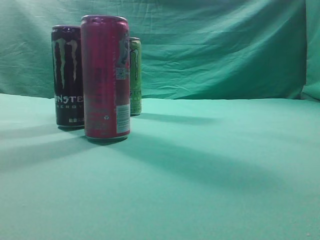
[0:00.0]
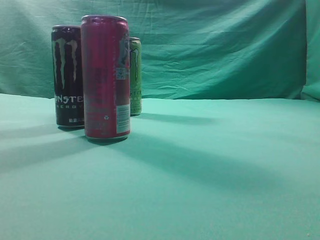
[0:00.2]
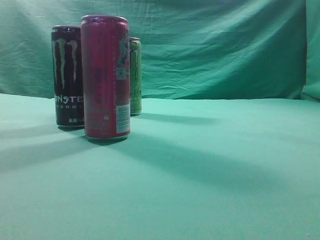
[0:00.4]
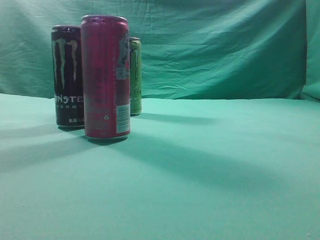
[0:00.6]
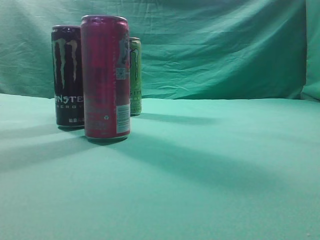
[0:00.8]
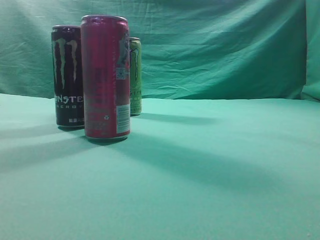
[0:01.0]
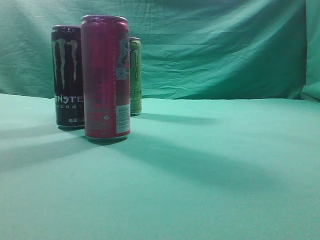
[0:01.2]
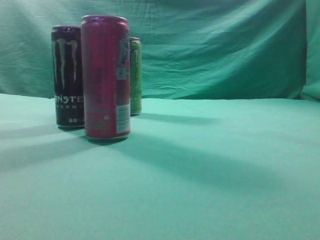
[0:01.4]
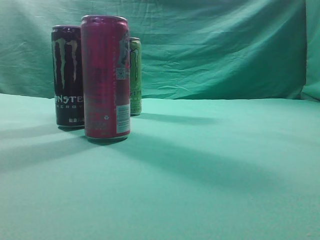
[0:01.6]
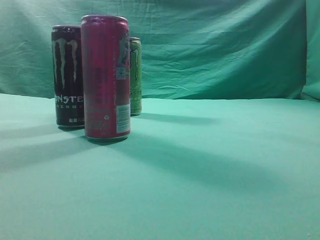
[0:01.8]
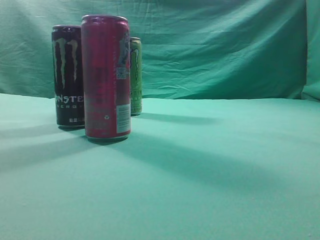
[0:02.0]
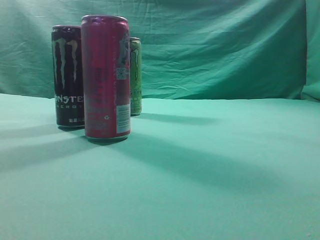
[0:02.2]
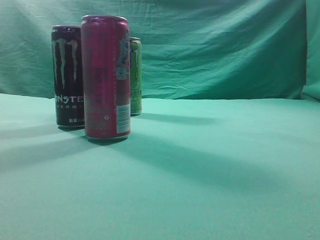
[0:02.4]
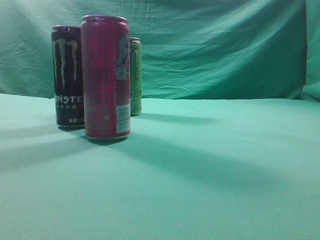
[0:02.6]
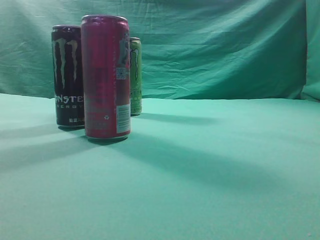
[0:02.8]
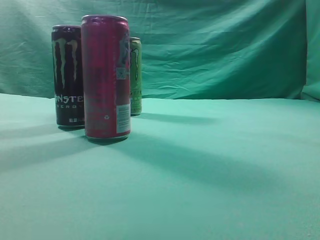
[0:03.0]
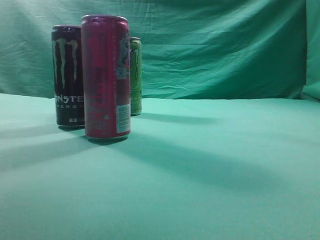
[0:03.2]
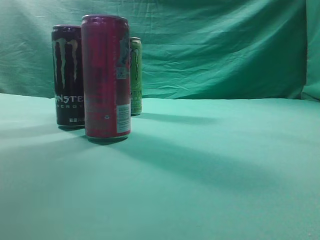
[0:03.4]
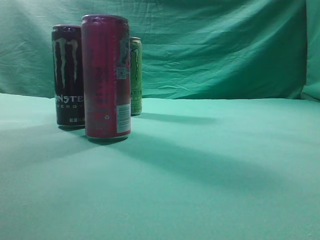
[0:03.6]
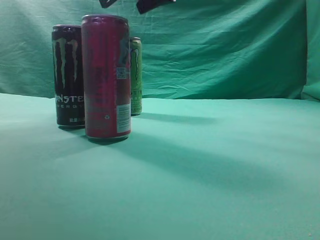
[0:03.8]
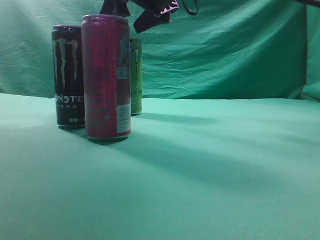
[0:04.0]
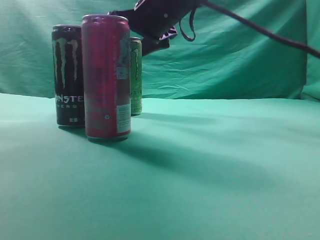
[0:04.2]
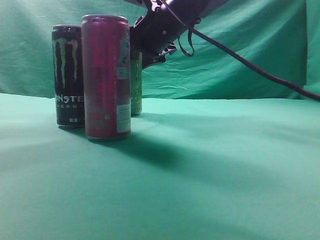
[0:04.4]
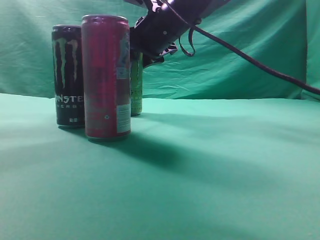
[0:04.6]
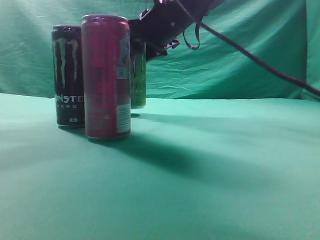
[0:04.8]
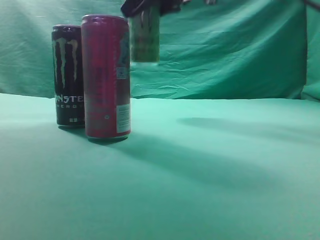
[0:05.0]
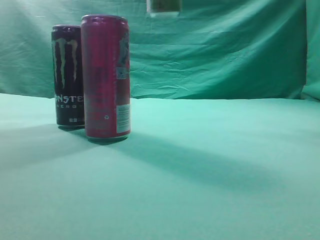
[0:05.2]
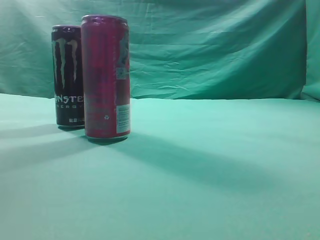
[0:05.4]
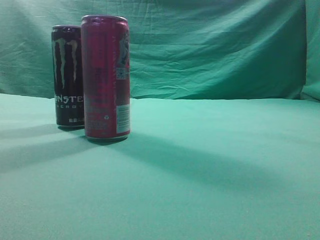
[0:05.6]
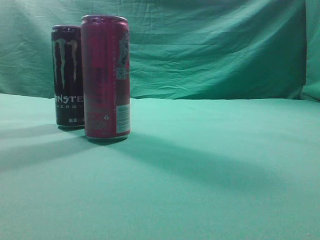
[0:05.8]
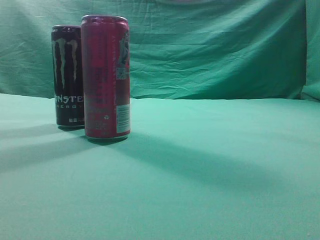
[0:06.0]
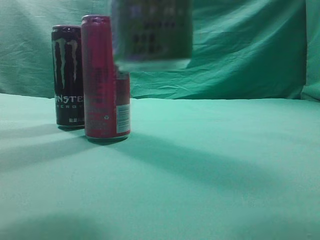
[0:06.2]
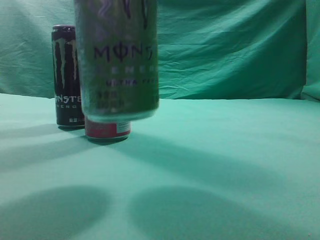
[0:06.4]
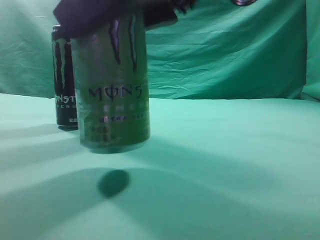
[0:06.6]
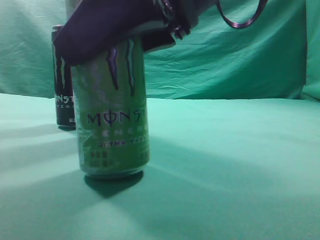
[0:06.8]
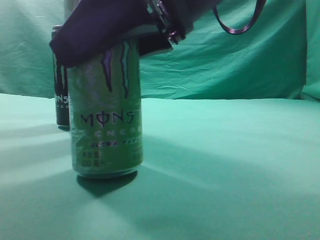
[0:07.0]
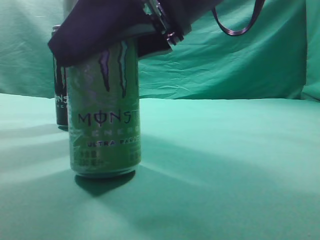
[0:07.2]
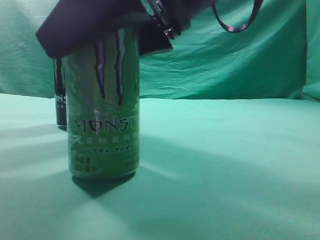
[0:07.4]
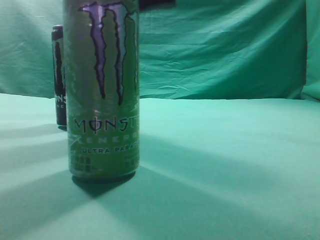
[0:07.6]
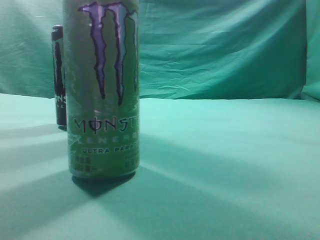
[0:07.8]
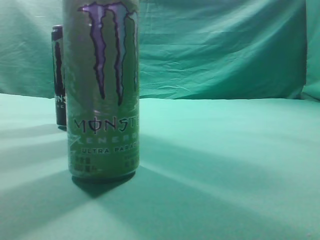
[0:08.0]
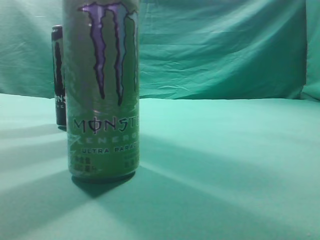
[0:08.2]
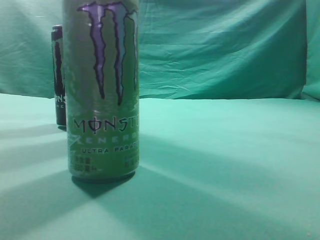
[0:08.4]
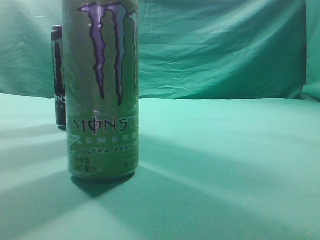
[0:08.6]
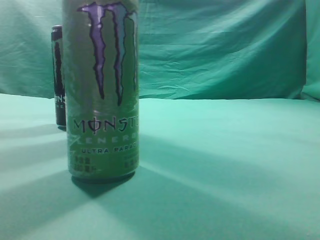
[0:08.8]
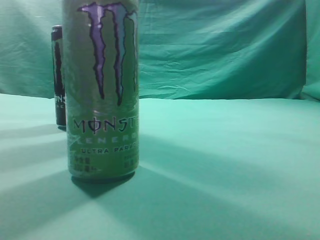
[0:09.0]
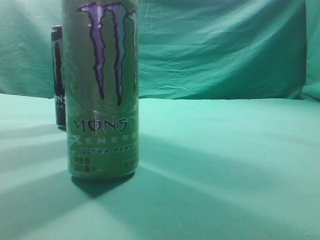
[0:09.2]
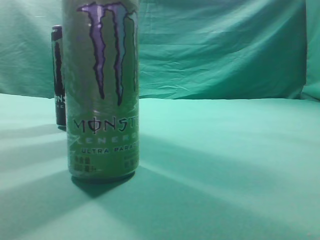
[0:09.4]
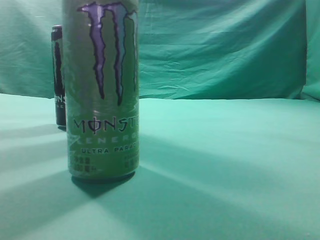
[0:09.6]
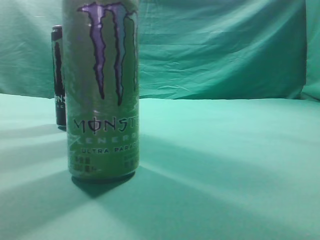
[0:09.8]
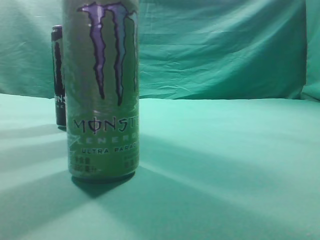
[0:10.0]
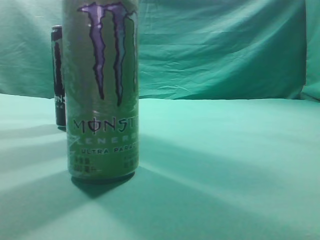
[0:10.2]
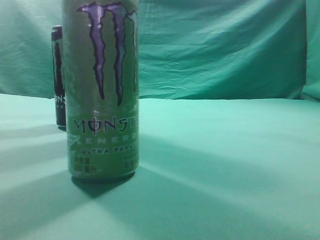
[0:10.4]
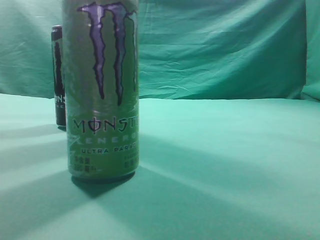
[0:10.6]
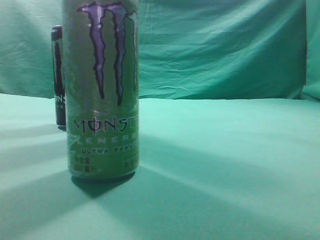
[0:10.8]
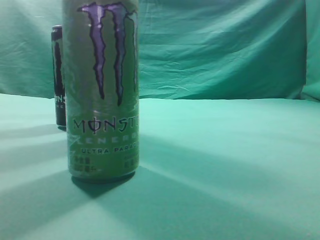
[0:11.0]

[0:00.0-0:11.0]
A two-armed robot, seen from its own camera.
Task of the whole recording: move one drink among three beverages.
Step, 0:00.0 to 0:04.8: Grasp the beverage bottle placed at the back of the desk.
Step, 0:05.0 to 0:07.4: Place the beverage bottle to the front of the table.
0:01.6 to 0:03.2: The right gripper is displaced forward, to the left and upward by approximately 30 cm.
0:03.2 to 0:04.8: The right gripper goes about 20 cm forward, downward and to the left, and opens up.
0:04.8 to 0:06.2: The right gripper goes approximately 25 cm backward.
0:06.2 to 0:07.8: The right gripper moves roughly 5 cm downward and comes back.

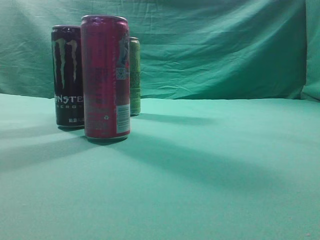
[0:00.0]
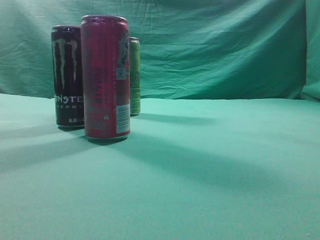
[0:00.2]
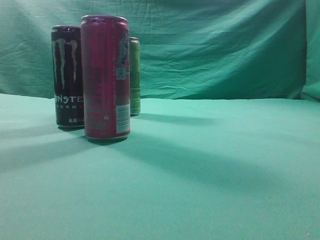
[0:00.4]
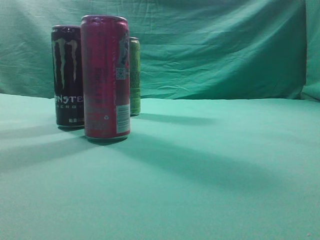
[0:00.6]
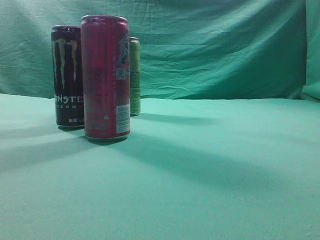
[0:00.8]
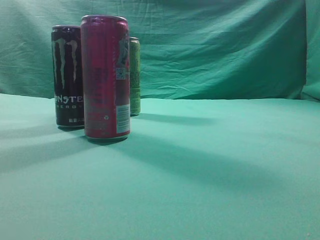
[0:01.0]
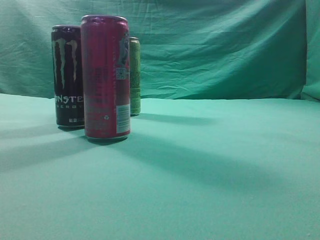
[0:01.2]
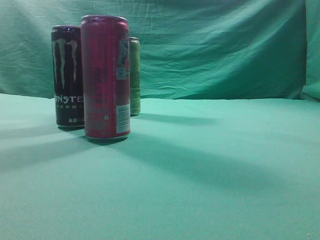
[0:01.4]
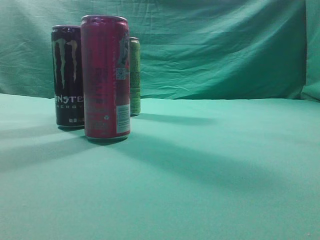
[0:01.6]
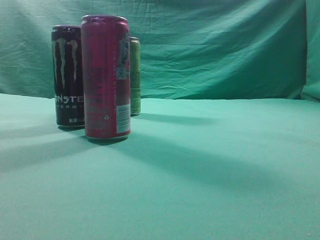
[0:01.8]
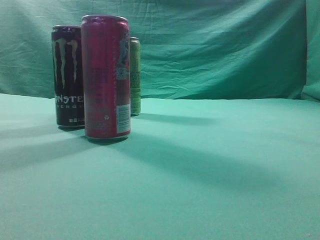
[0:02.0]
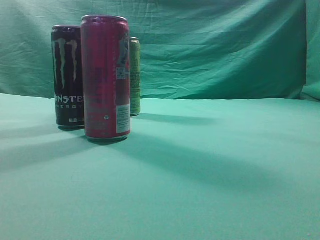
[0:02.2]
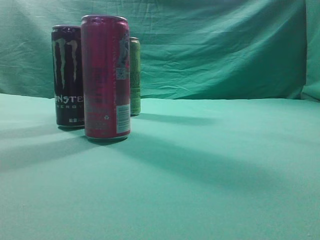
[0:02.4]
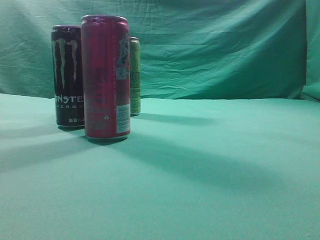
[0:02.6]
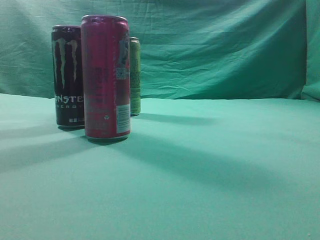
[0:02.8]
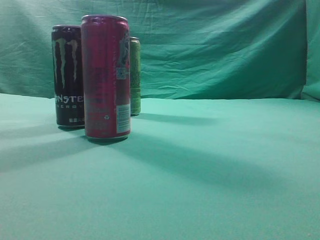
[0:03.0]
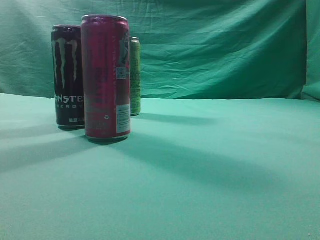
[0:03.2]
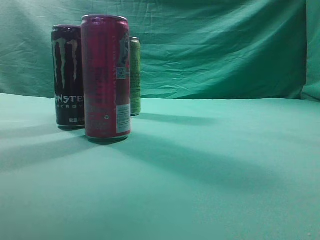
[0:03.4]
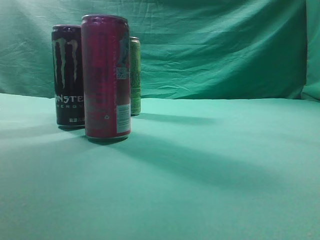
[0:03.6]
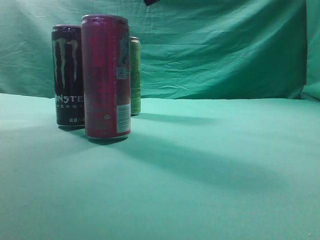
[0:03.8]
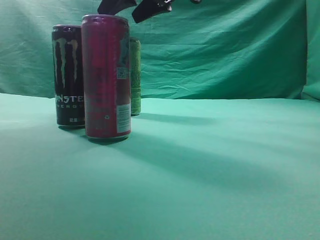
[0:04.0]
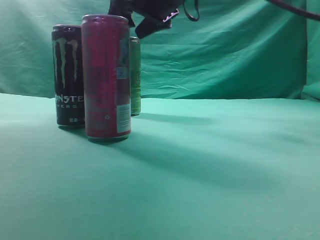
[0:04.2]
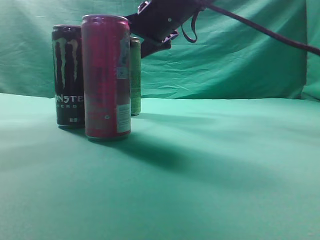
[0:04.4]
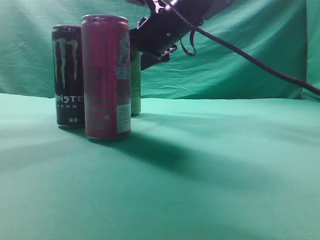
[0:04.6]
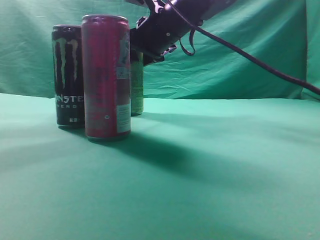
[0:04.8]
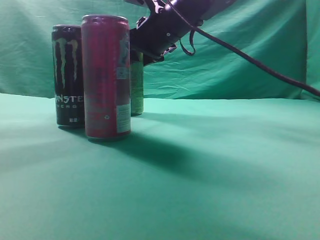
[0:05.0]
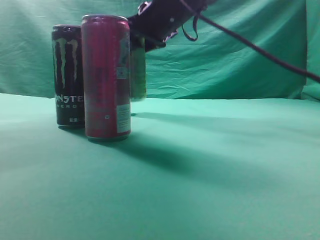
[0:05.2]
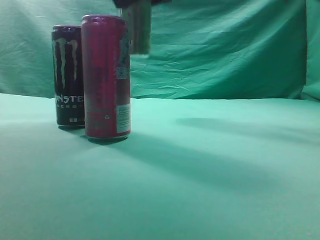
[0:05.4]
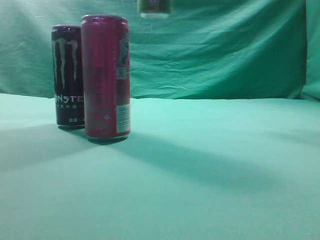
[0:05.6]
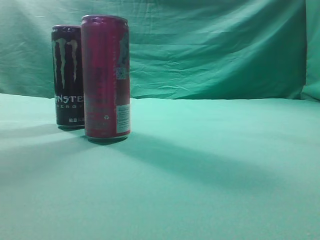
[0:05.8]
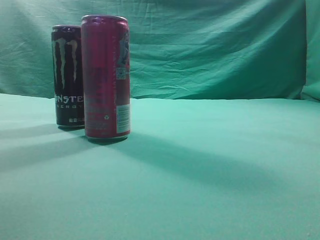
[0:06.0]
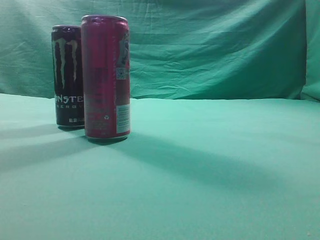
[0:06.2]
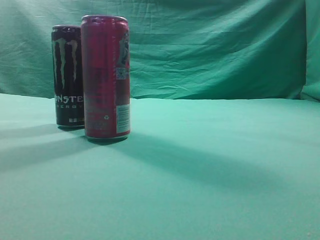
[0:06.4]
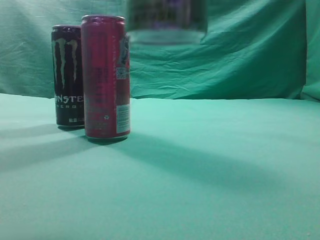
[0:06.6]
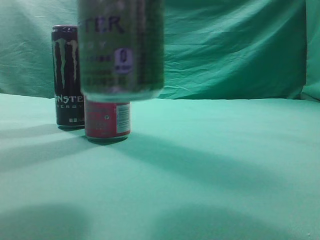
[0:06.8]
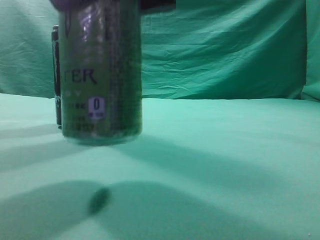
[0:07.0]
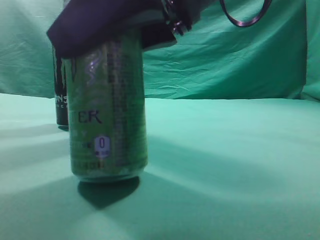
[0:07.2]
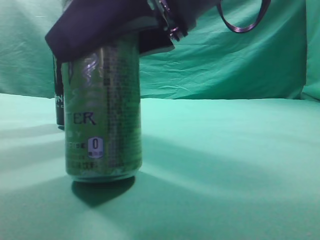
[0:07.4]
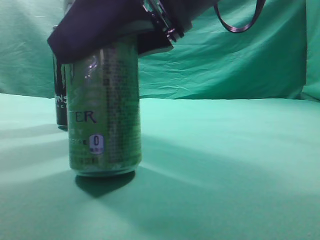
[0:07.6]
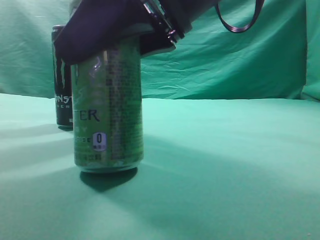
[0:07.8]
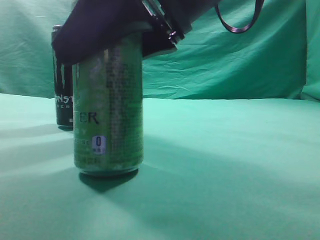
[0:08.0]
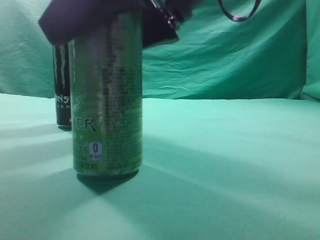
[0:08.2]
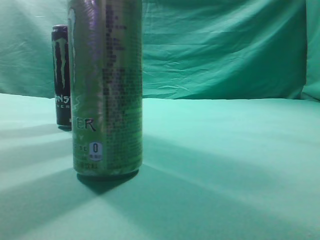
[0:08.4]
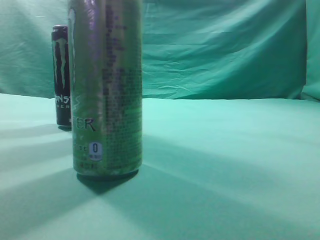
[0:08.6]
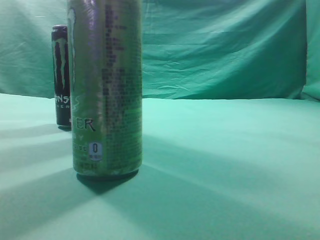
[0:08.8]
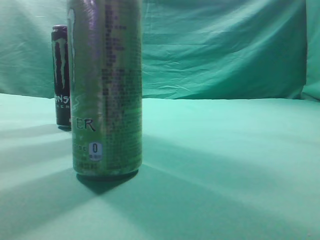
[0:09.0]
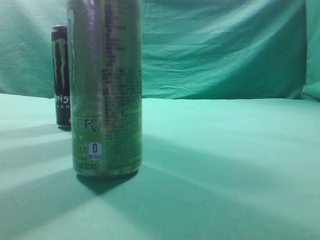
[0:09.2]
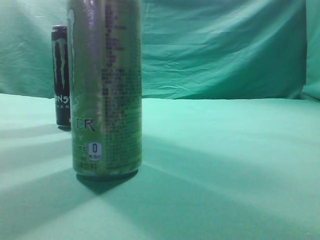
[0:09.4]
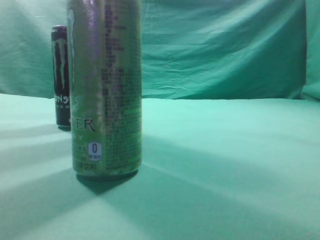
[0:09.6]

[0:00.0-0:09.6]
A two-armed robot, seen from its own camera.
Task of the whole recording: move one drink among three beverages.
Step, 0:00.0 to 0:05.2: Grasp the beverage bottle placed at the back of the desk.
Step, 0:05.4 to 0:09.2: Place the beverage bottle to the front of the table.
0:03.2 to 0:04.8: The right gripper goes roughly 30 cm forward, to the left and downward, and opens up.
0:04.8 to 0:06.4: The right gripper heads backward, upward and to the right, covering some 30 cm.
0:06.4 to 0:08.0: The right gripper shifts about 15 cm downward and to the left.
0:08.0 to 0:09.6: The right gripper goes approximately 30 cm to the right, upward and backward, and closes.
